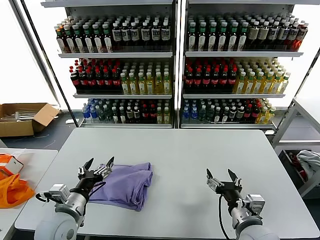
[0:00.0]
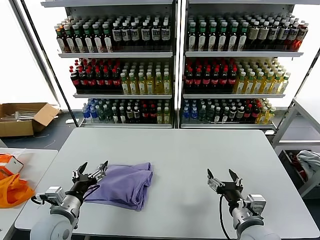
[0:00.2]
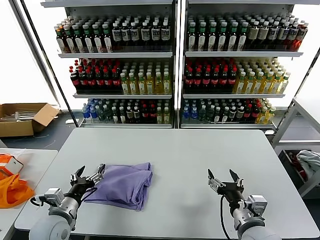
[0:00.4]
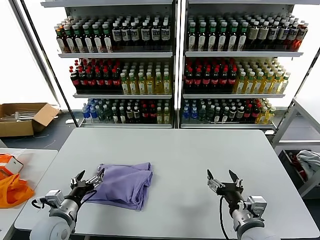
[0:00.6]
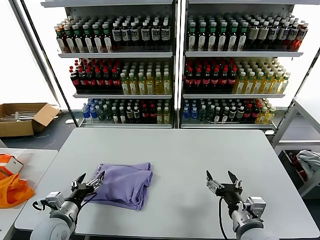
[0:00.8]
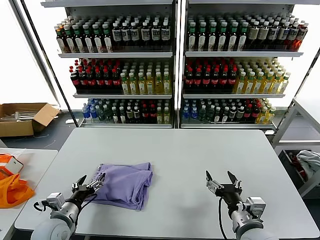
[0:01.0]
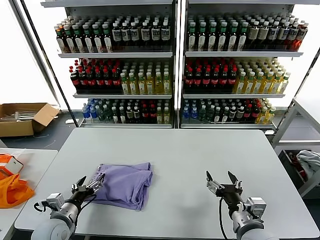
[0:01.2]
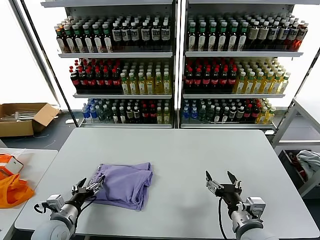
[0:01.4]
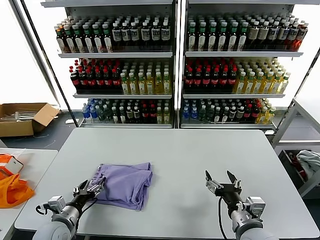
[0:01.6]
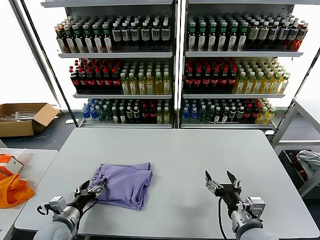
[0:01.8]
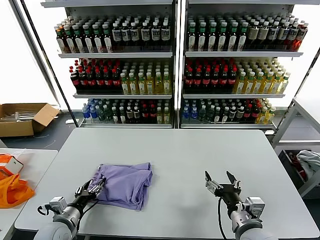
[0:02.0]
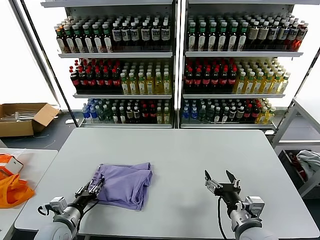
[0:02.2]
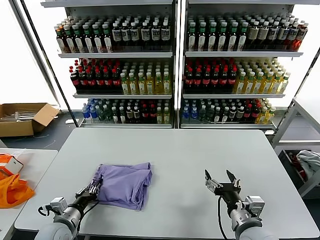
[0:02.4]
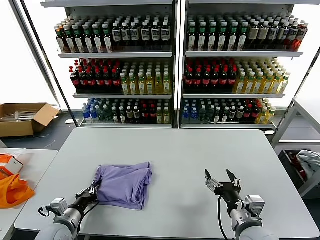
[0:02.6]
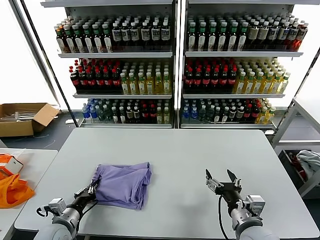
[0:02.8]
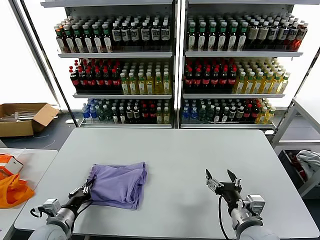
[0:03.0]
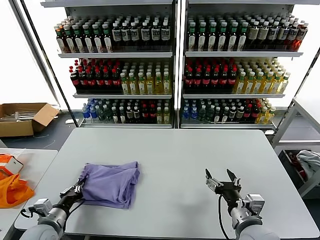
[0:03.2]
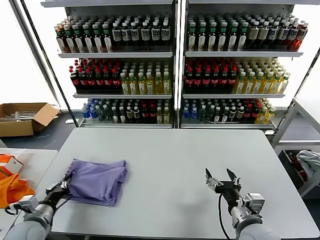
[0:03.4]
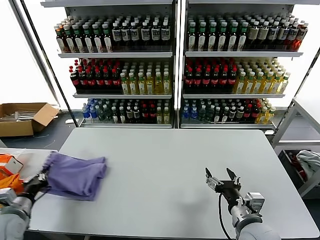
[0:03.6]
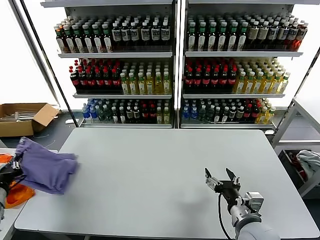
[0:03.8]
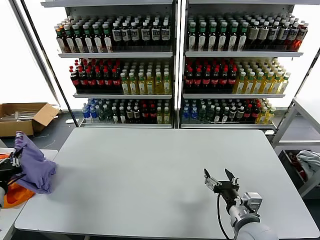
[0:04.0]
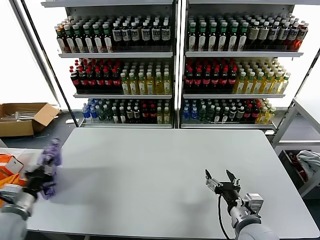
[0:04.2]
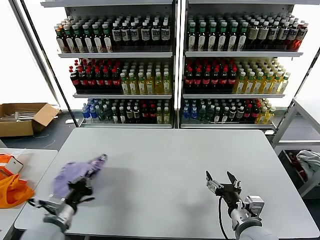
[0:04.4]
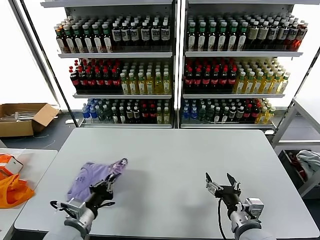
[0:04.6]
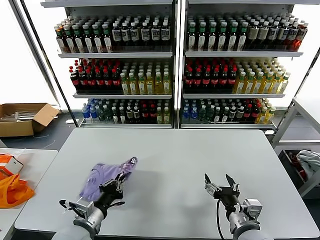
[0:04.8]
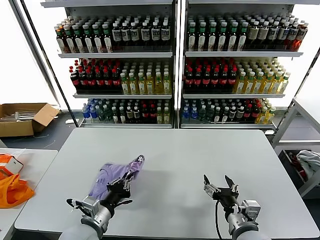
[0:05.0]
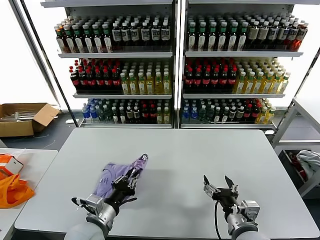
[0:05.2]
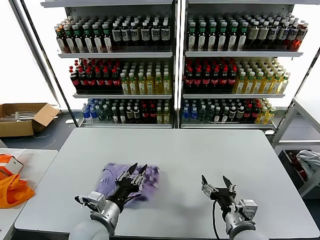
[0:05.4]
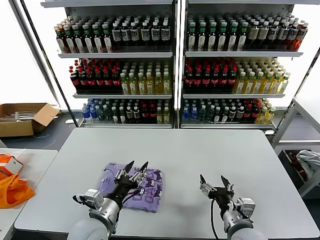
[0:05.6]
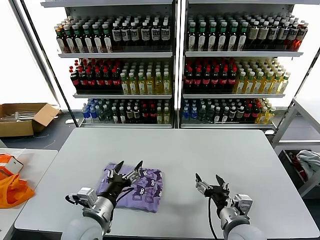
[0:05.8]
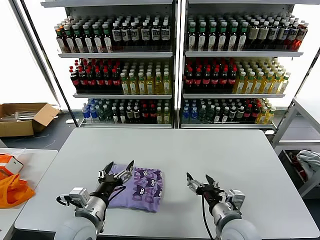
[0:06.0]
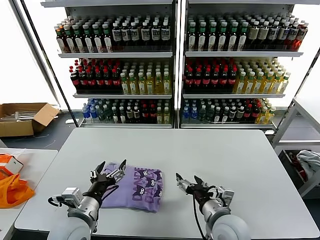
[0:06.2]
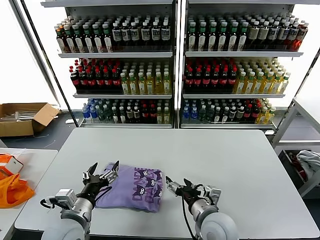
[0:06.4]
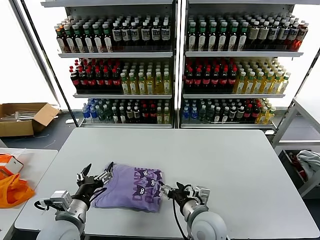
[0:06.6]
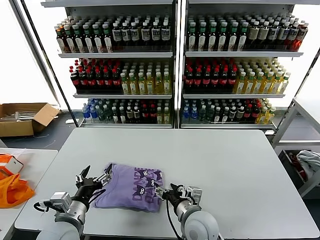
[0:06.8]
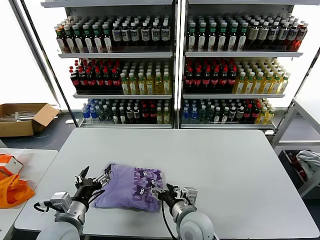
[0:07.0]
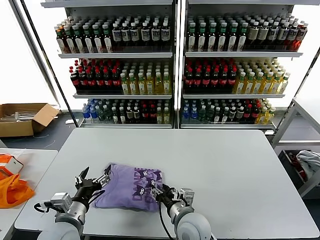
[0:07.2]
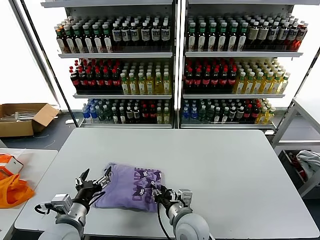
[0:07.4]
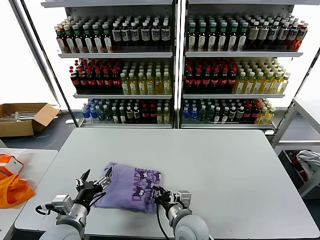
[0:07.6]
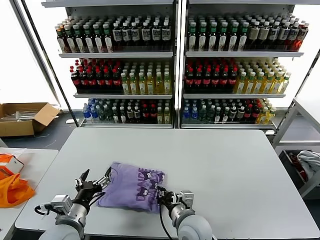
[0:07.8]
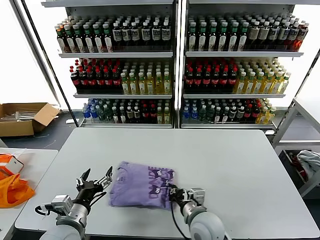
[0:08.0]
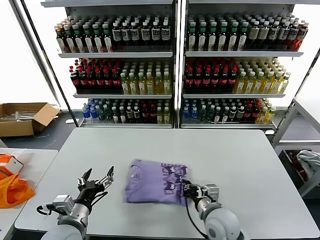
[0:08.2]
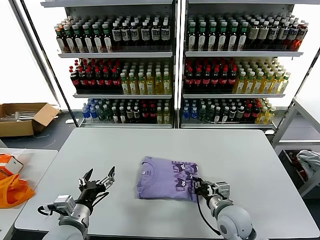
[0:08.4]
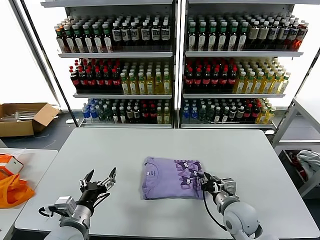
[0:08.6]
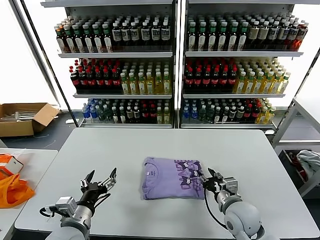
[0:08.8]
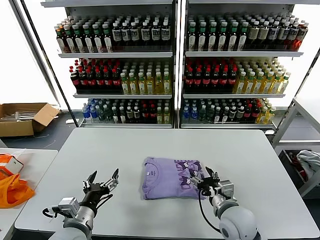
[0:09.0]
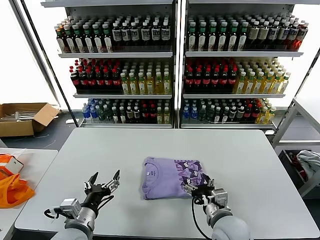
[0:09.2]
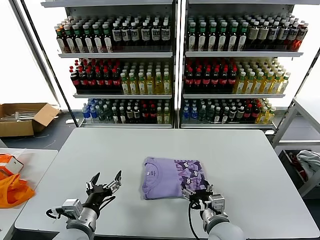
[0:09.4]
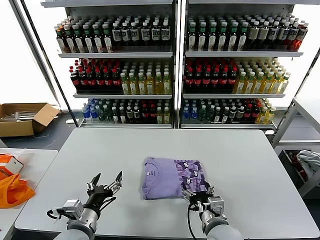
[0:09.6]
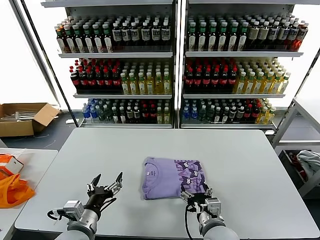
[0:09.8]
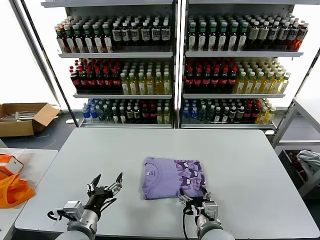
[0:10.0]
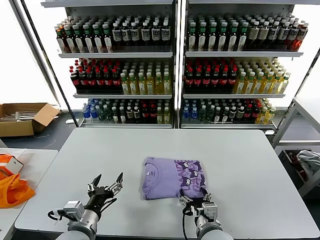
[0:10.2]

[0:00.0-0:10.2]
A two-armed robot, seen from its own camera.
Task of the whole recording: fold and organize the clothes.
Step, 0:00.0 to 0:05.2: Flip the folded clothes over with left gripper.
0:00.0 to 0:01.4: The left gripper goes some 10 cm downward and to the left.
0:01.4 to 0:03.0: The left gripper closes up.
0:03.0 to 0:04.4: The left gripper is displaced upward by some 5 cm, and reaches approximately 15 cm to the left, then returns.
0:04.4 to 0:05.8: The left gripper is displaced to the right by roughly 15 cm, and opens up.
0:05.8 to 0:07.2: The left gripper is displaced to the left by about 5 cm; the right gripper moves to the left, about 15 cm.
0:07.2 to 0:08.8: The right gripper is displaced to the right by roughly 15 cm, and closes and opens again.
0:08.8 to 0:10.2: The right gripper heads to the left and backward, covering roughly 10 cm, and opens its fingers.

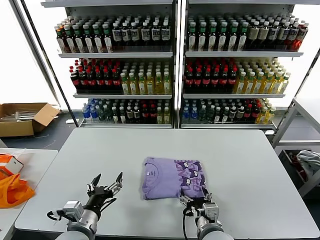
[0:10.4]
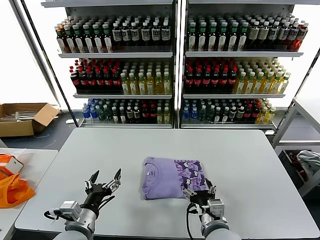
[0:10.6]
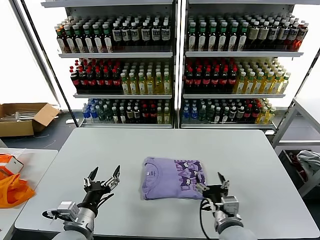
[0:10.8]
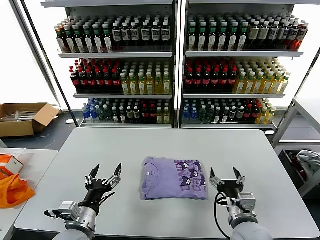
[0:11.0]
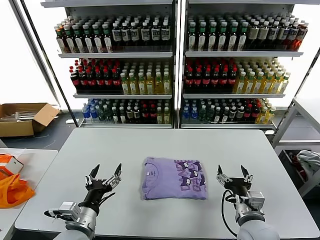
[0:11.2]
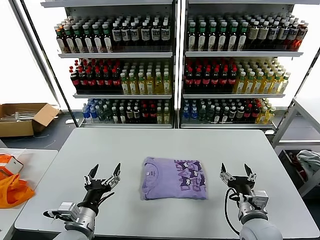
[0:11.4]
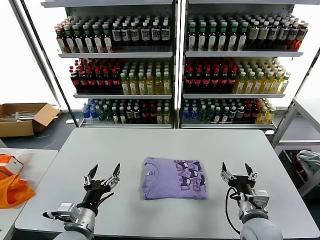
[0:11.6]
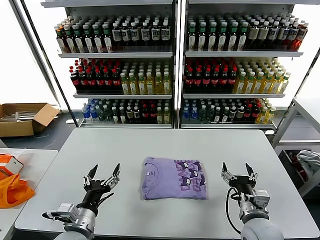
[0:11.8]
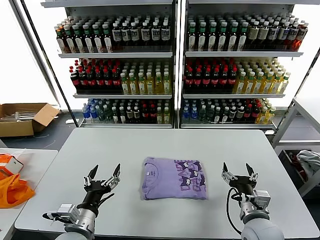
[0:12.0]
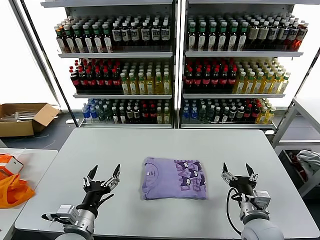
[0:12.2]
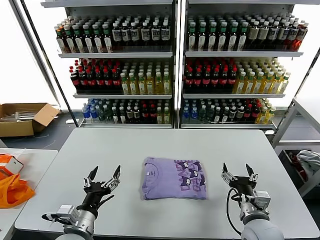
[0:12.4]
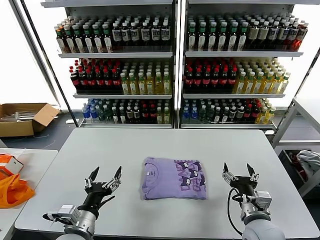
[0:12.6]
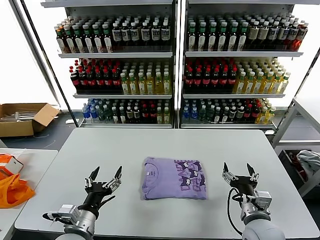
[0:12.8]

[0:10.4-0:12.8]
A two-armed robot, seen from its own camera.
Task of the whole recording: fold and organize the clothes.
0:10.4 to 0:11.6: The right gripper shifts roughly 10 cm to the right.
0:11.6 to 0:12.8: The two grippers keep their place.
